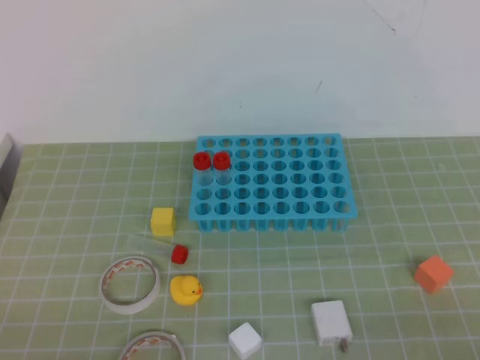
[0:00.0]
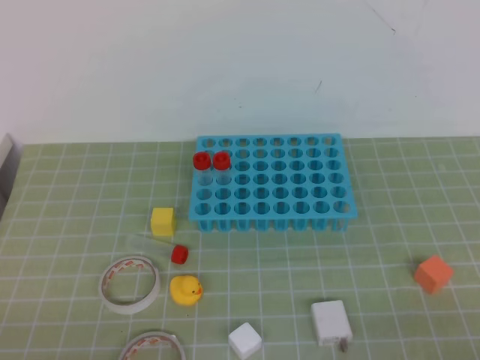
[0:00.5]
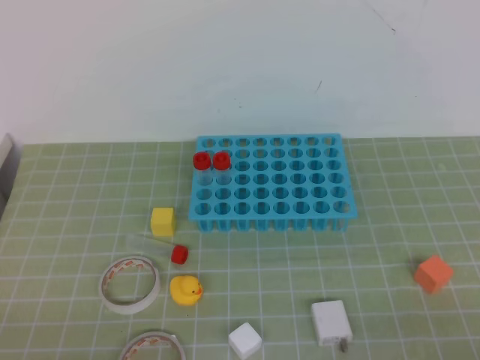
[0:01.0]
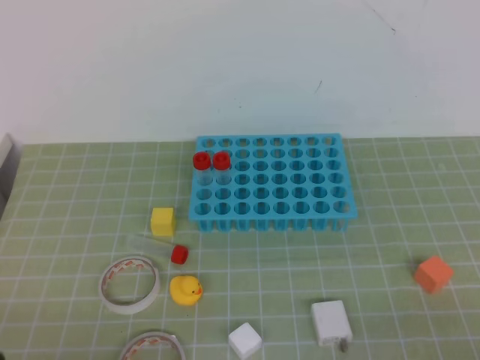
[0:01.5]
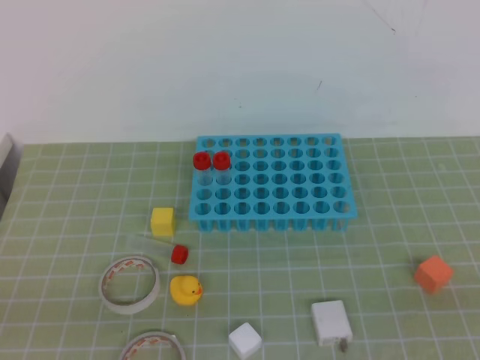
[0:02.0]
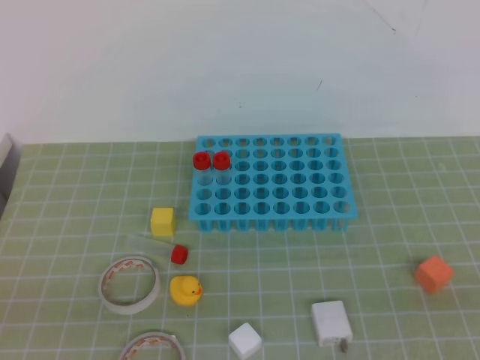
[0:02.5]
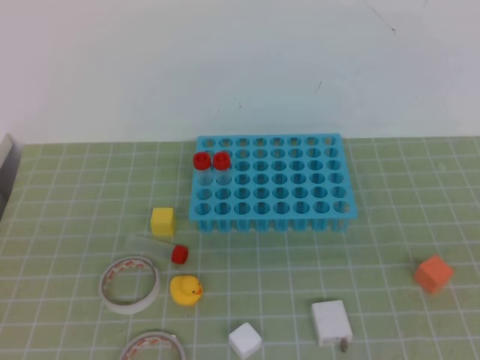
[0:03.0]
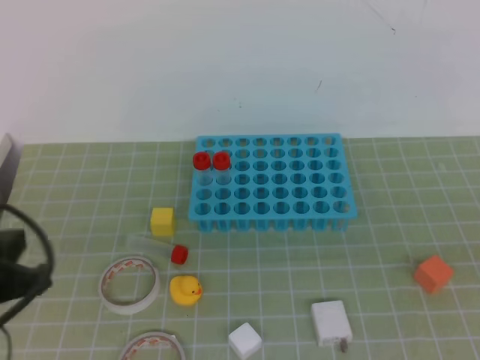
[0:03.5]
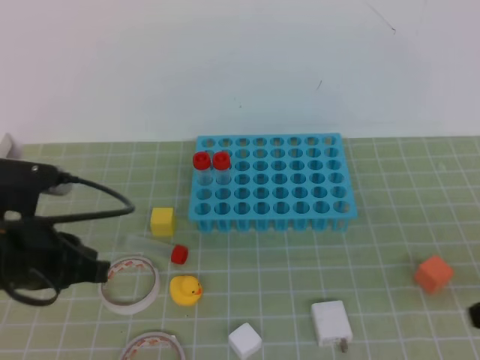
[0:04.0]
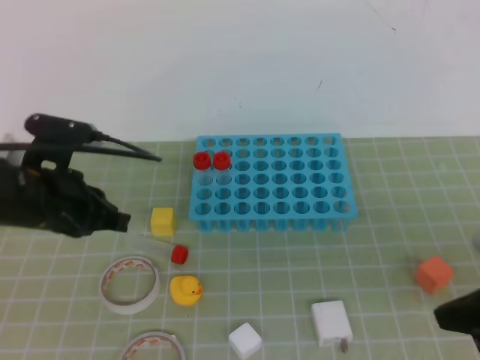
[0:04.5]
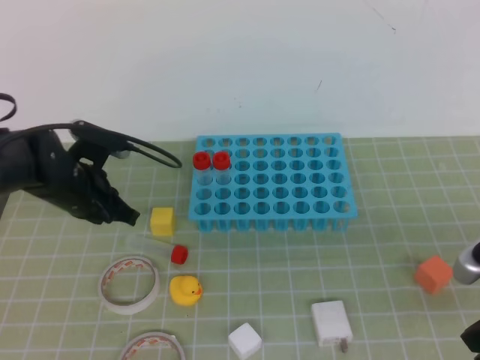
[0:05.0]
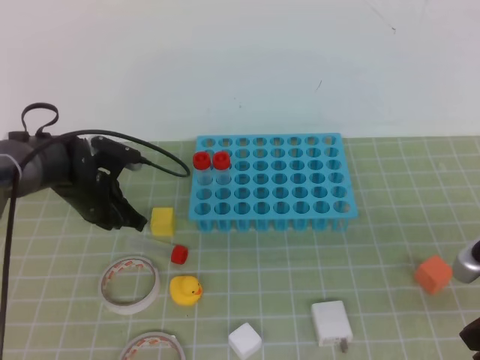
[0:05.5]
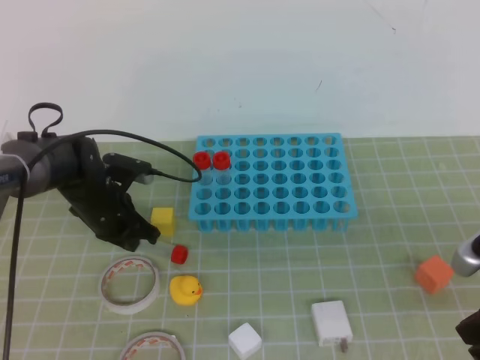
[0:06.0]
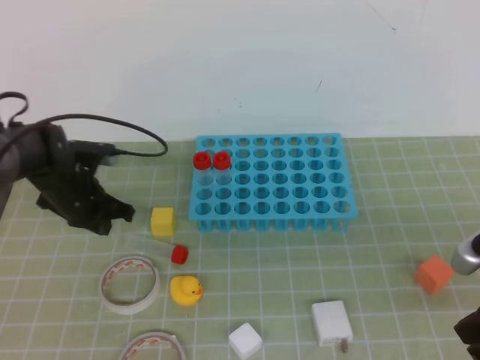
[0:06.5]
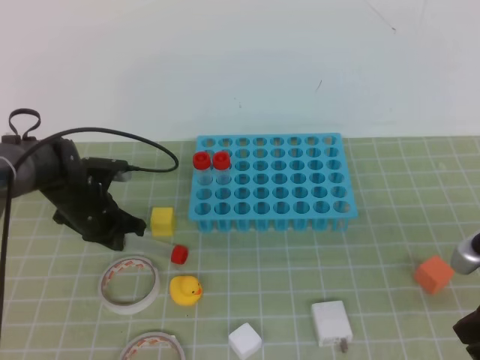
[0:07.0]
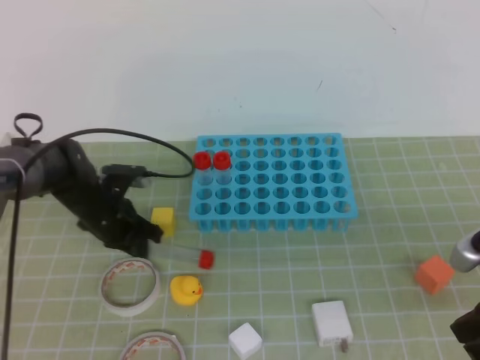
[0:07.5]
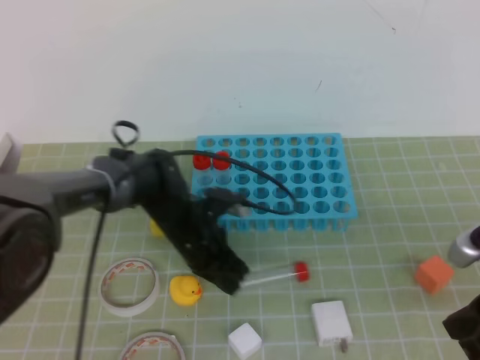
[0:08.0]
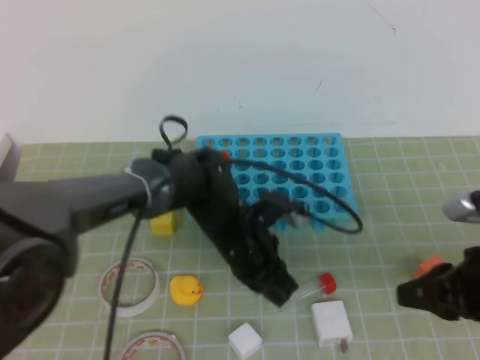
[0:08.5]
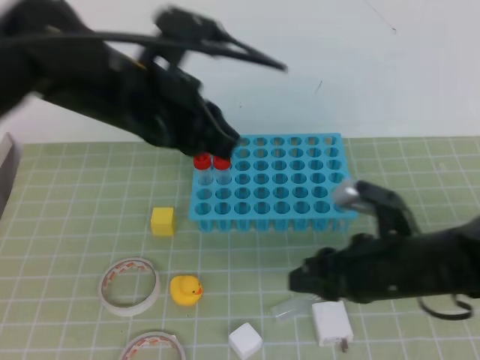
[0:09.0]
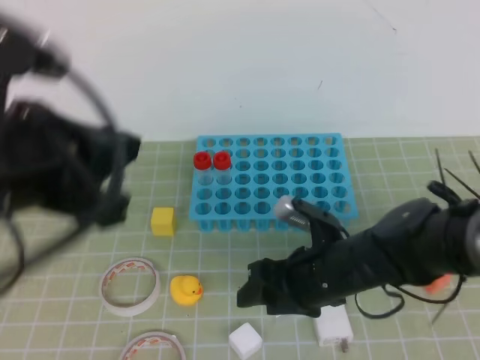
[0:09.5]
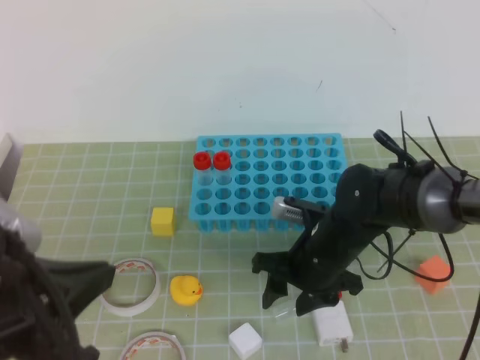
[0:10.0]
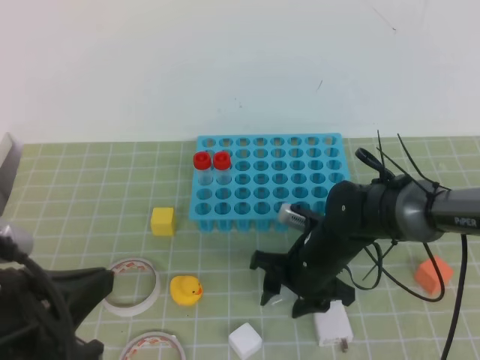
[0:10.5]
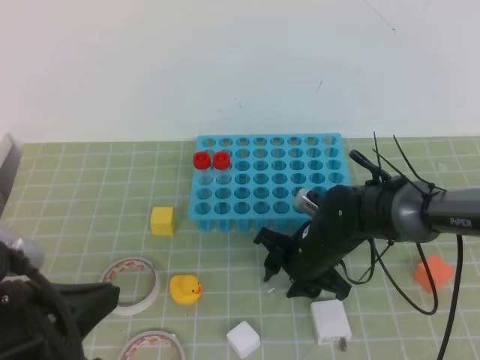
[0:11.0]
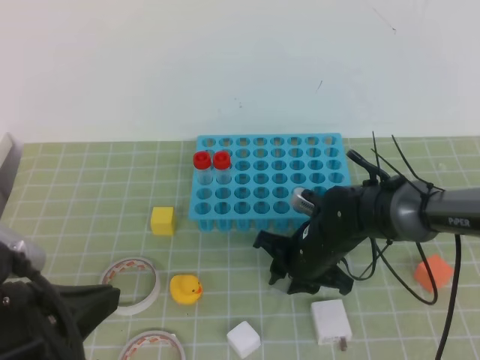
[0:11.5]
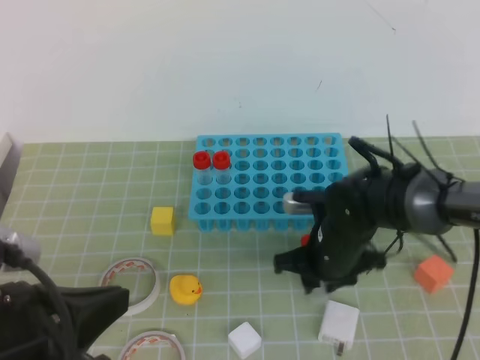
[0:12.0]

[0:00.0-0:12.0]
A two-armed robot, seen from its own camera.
0:02.0 to 0:04.0: The left gripper moves forward, about 20 cm.
0:04.0 to 0:06.0: The left gripper is displaced forward and downward by about 25 cm.
0:06.0 to 0:08.0: The left gripper moves to the right, about 10 cm.
0:08.0 to 0:10.0: The right gripper shifts roughly 25 cm to the left, forward and downward, and opens. The left gripper travels backward and upward by about 35 cm.
0:10.0 to 0:12.0: The right gripper closes its fingers.

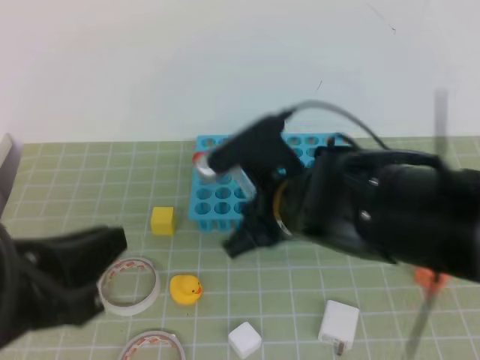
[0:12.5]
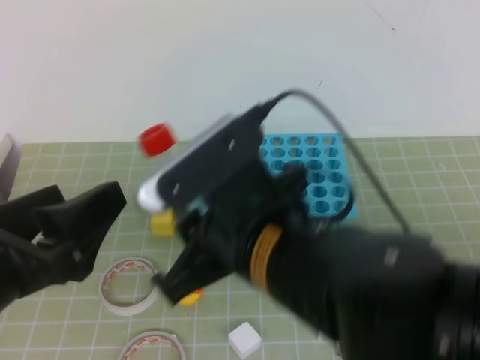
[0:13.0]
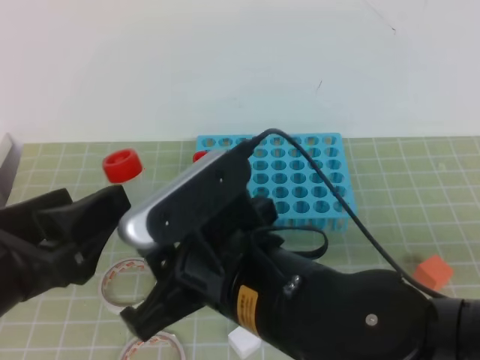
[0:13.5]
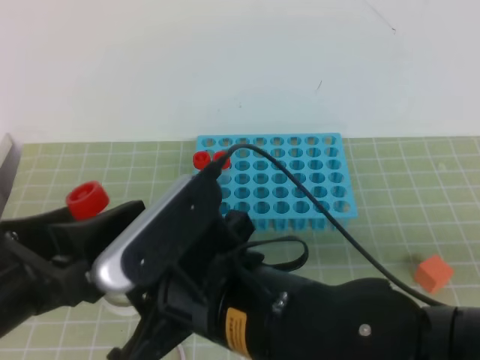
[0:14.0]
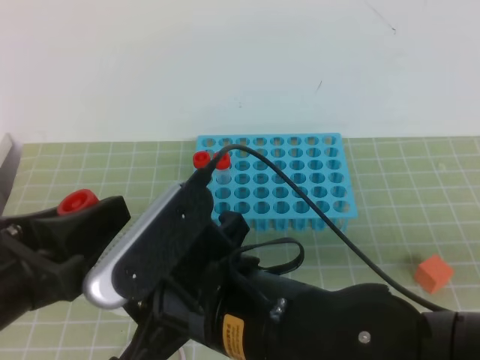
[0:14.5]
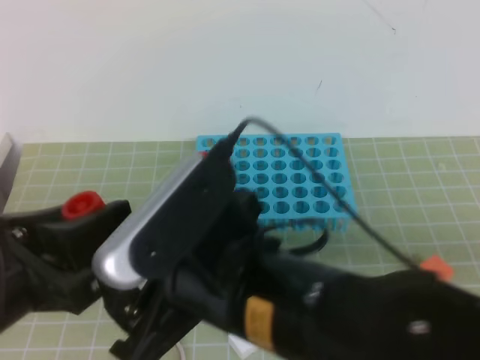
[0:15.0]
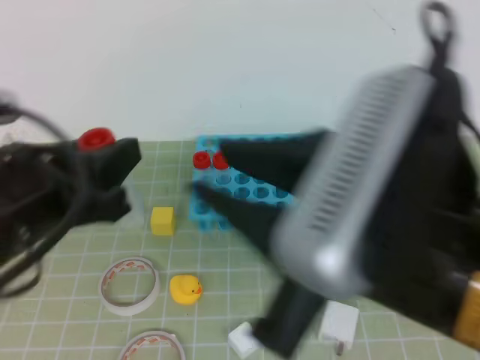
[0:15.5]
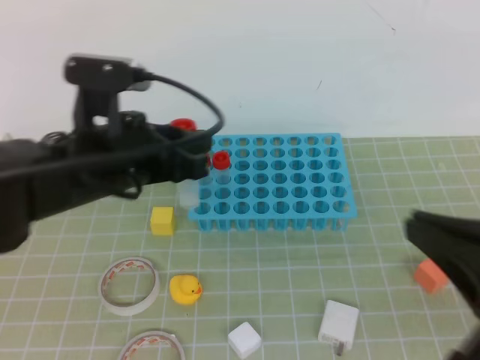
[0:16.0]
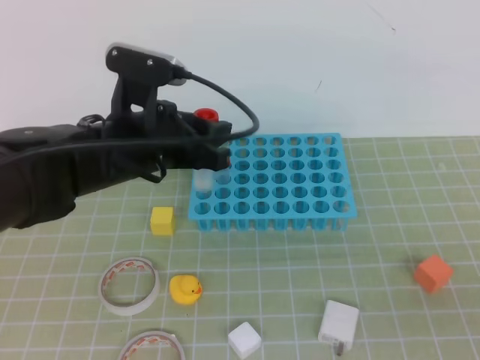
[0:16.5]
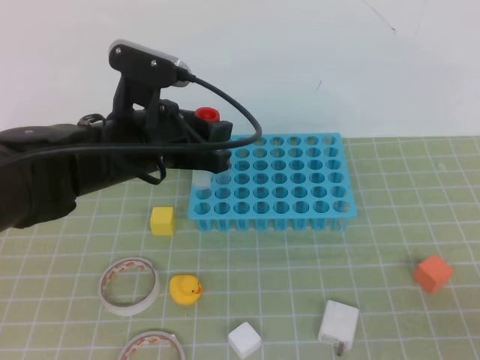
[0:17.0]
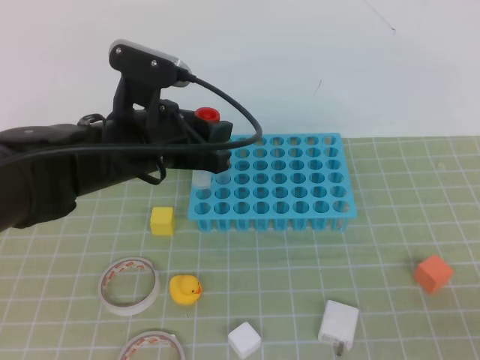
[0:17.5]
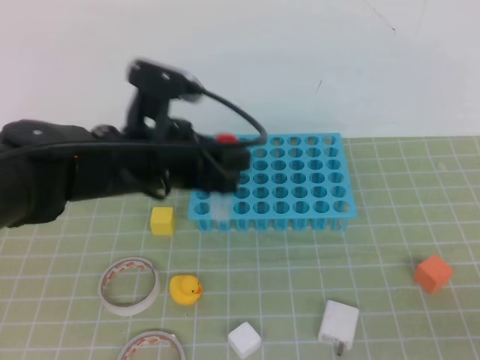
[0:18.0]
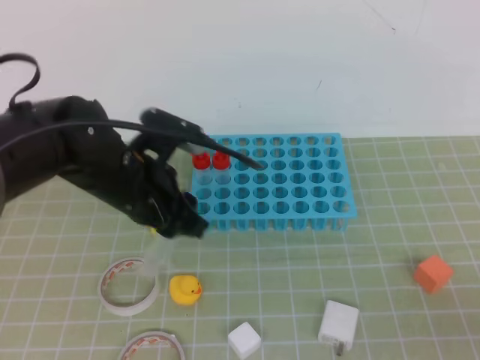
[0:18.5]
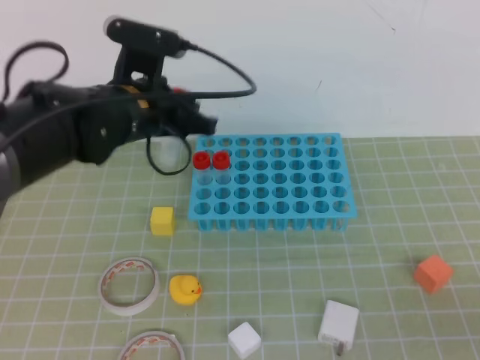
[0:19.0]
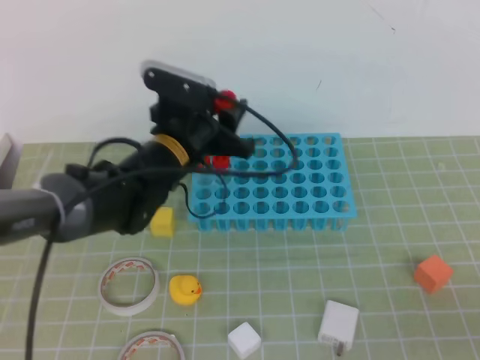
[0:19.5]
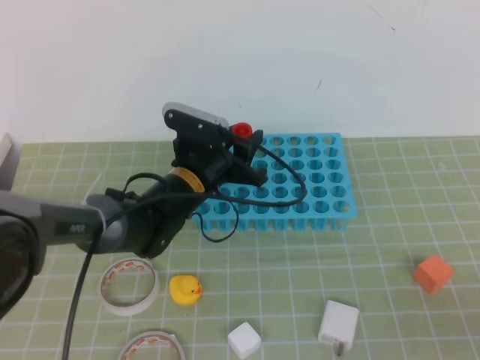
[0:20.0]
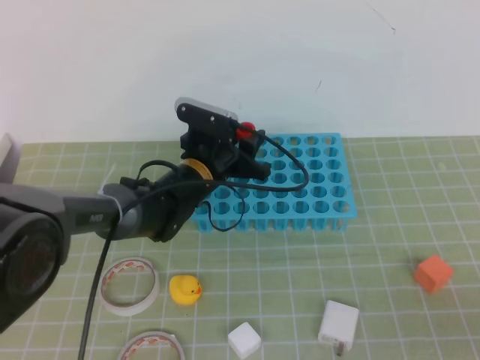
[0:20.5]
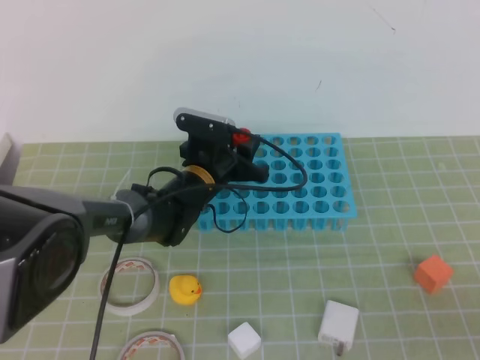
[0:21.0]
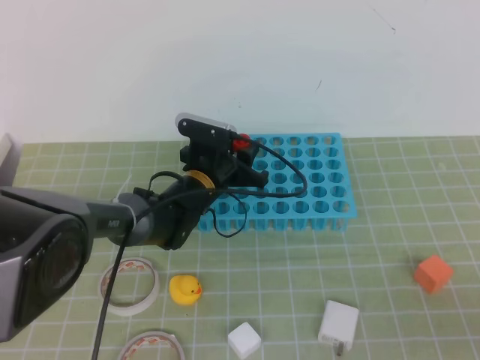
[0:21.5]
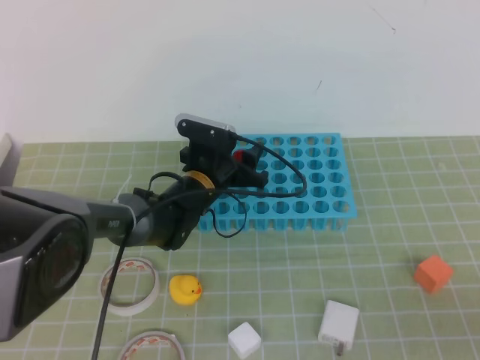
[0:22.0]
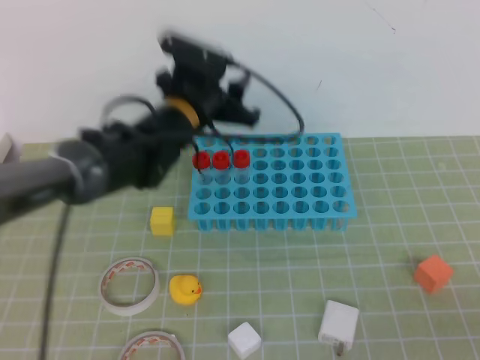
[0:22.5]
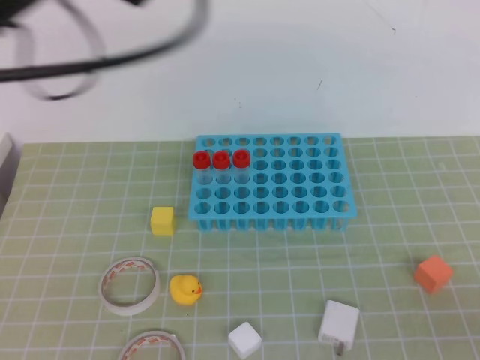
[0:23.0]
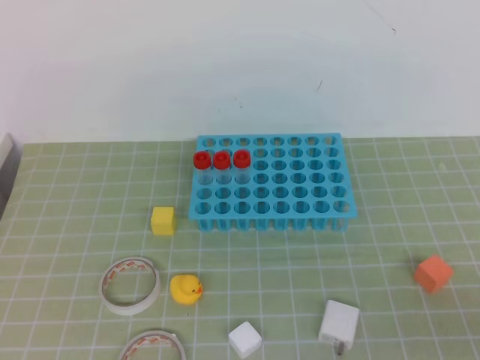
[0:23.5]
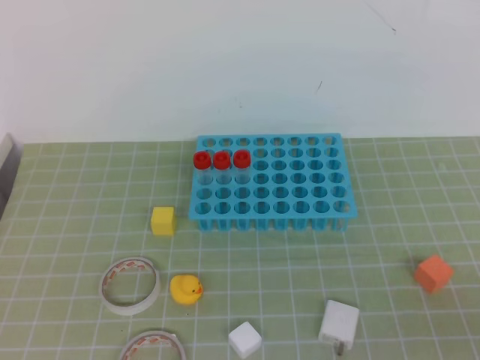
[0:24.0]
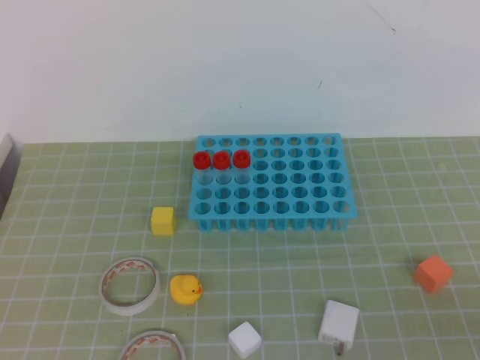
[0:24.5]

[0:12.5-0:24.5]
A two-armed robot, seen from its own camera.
0:12.5 to 0:14.5: The right gripper shifts roughly 15 cm backward and to the left, while the left gripper opens and closes again.
0:14.5 to 0:16.5: The right gripper moves to the right, some 25 cm, and closes up. Meanwhile the left gripper goes roughly 20 cm forward.
0:18.5 to 0:20.5: The left gripper is displaced forward, downward and to the right by roughly 15 cm.
0:20.5 to 0:22.5: The left gripper heads upward, covering some 10 cm.
0:22.5 to 0:24.5: The left gripper shifts approximately 50 cm backward, upward and to the left, and closes.
